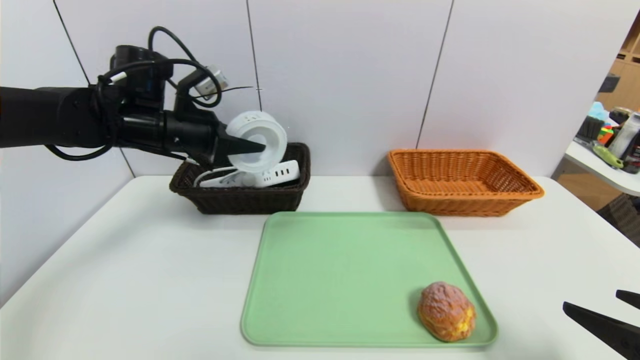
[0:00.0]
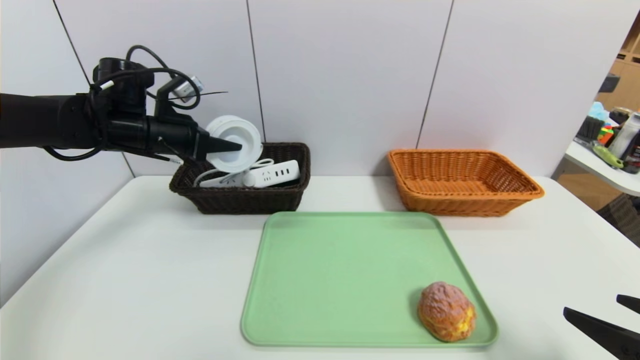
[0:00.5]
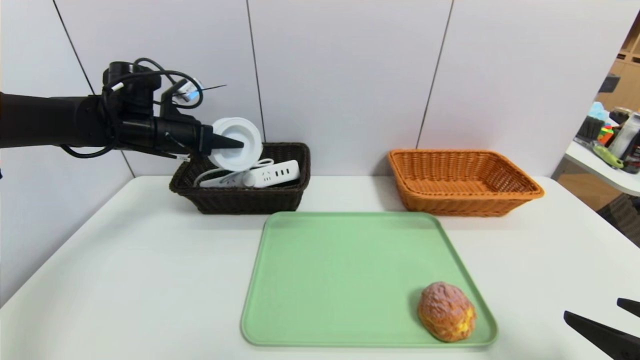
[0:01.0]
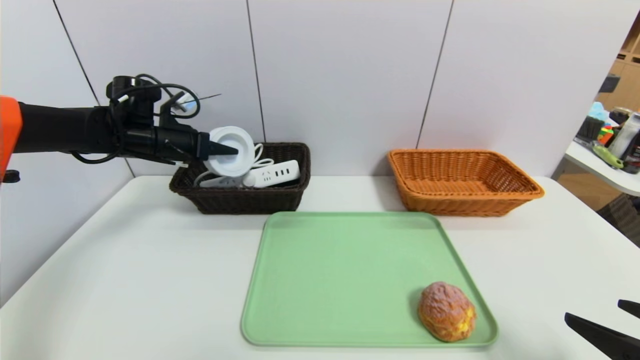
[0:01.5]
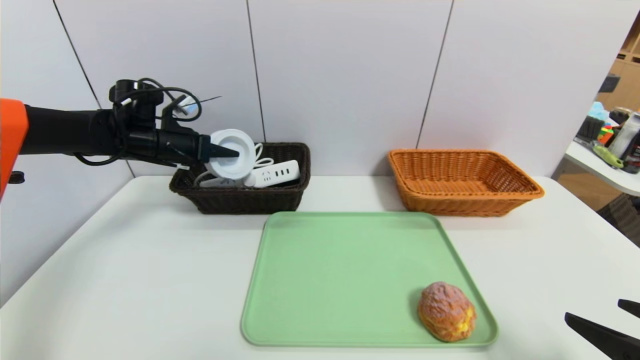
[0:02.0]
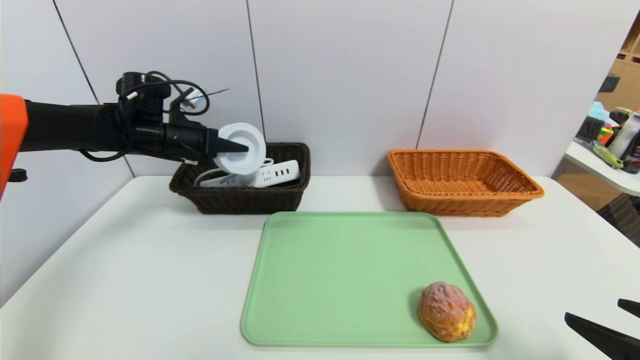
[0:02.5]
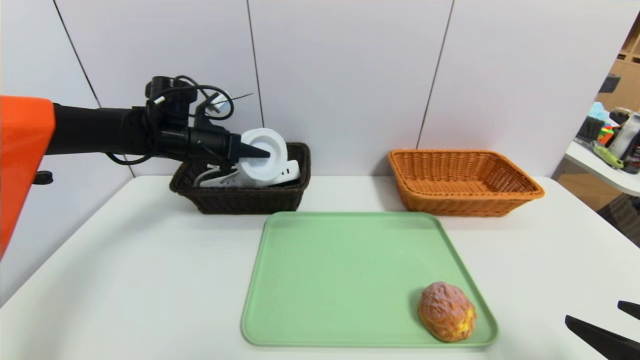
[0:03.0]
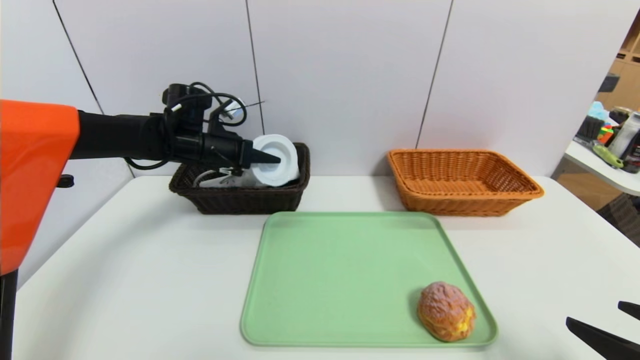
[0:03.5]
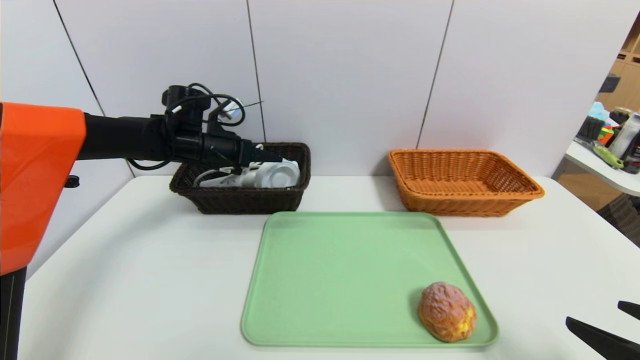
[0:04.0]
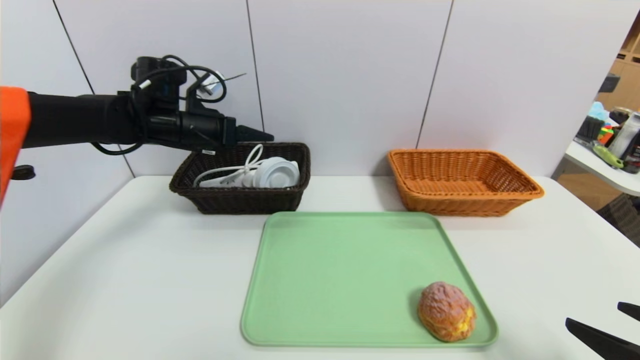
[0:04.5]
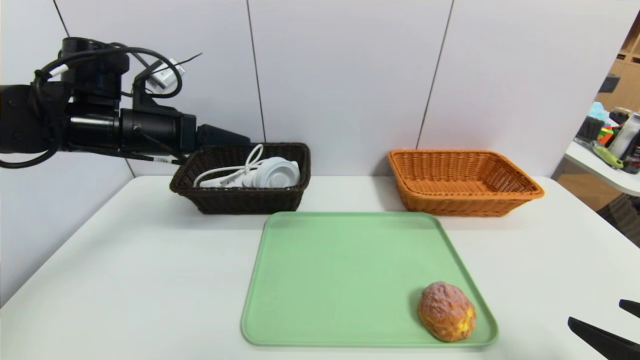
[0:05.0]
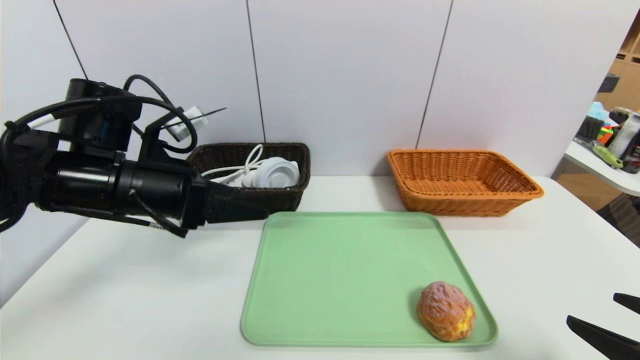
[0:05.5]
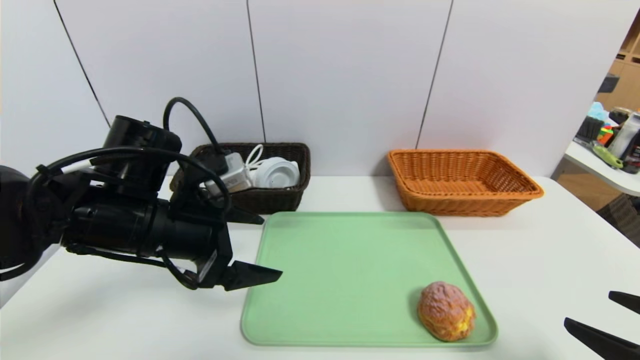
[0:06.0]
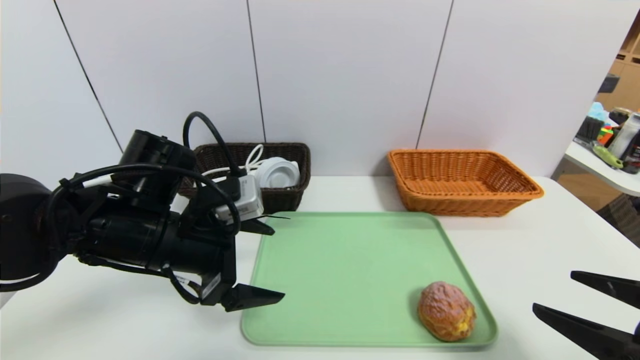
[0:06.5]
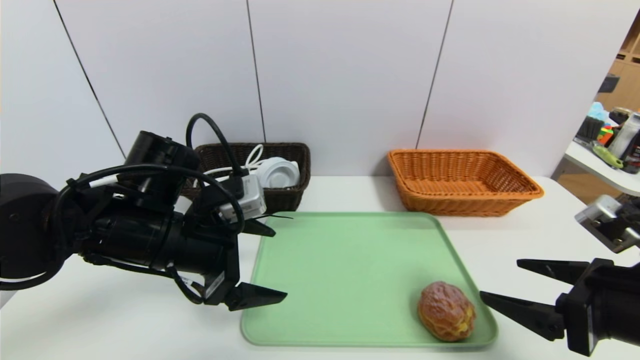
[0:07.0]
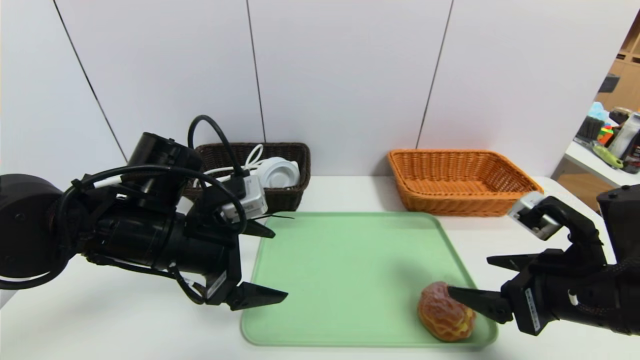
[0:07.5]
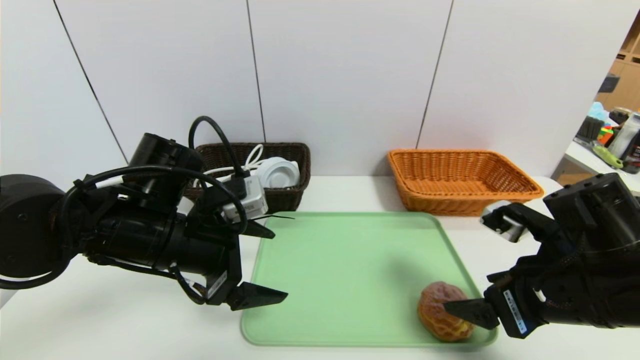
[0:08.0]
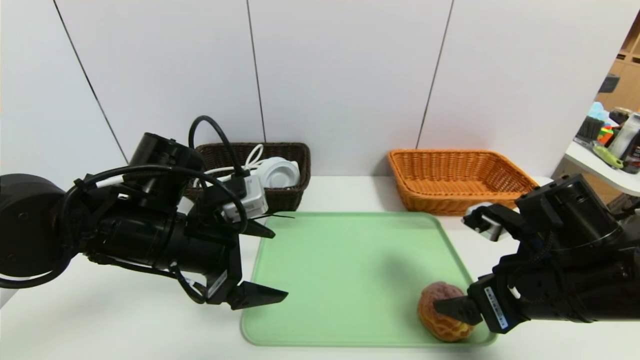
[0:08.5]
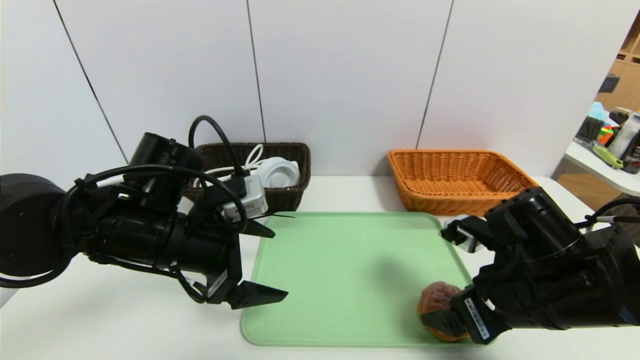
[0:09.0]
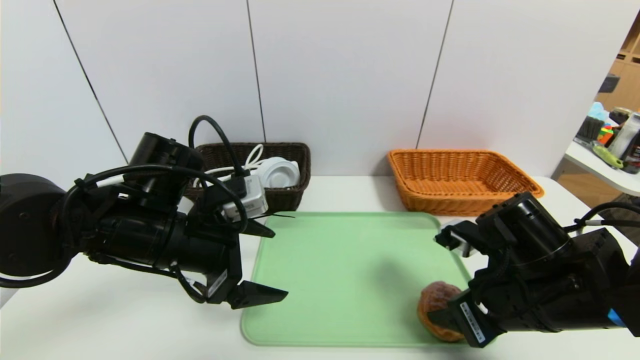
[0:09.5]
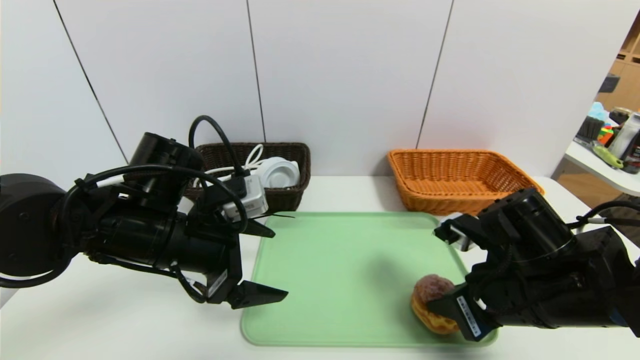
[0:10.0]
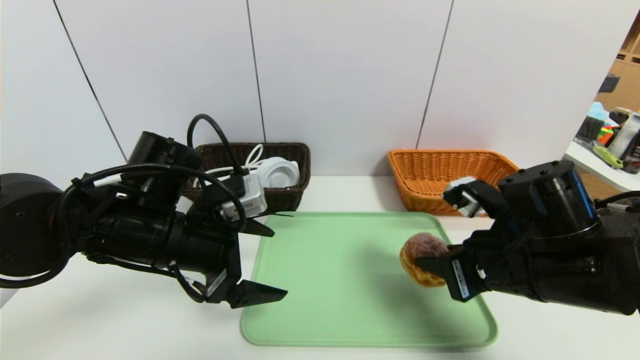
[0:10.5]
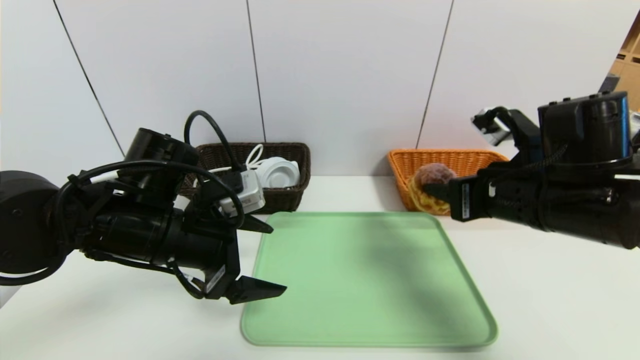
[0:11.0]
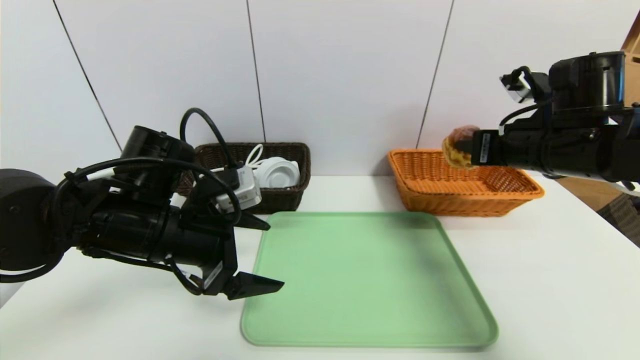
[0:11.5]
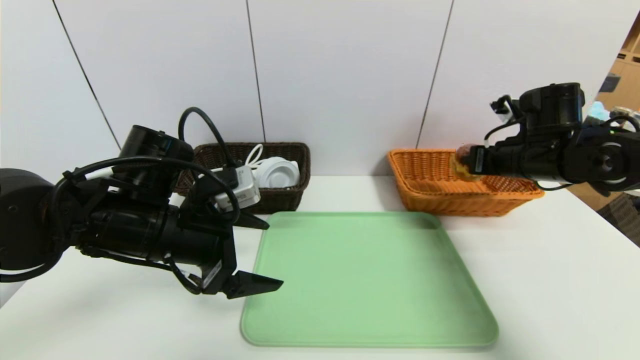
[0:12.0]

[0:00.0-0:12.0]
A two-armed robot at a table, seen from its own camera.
Task of the whole recording: place the food in the right basket with the right gripper, and place the non food items in the left basket with the left gripper.
Step, 0:00.0 to 0:04.0: Grasp the tape and put it in the left basket.
0:00.0 to 0:02.0: The left gripper heads forward and to the left, covering some 10 cm.
0:02.0 to 0:04.0: The left gripper shifts approximately 5 cm to the right, and opens its fingers.
0:04.0 to 0:06.0: The left gripper goes about 20 cm backward, and opens.
0:06.0 to 0:08.0: The right gripper is displaced forward and to the left by about 15 cm.
0:08.0 to 0:10.0: The right gripper closes.
0:10.0 to 0:12.0: The right gripper is displaced forward and to the right by some 20 cm.

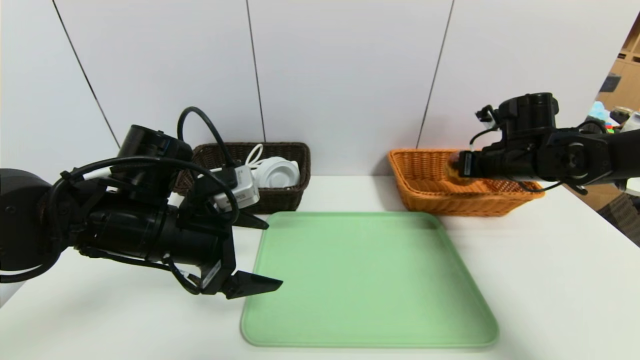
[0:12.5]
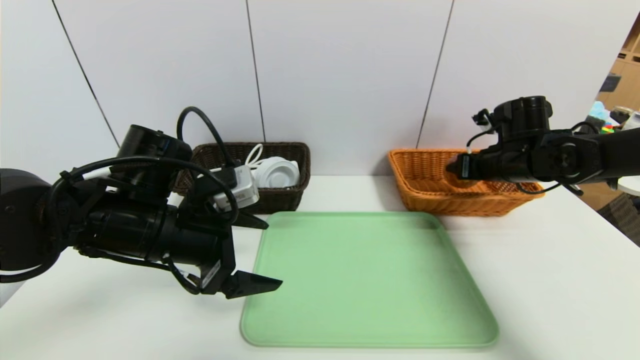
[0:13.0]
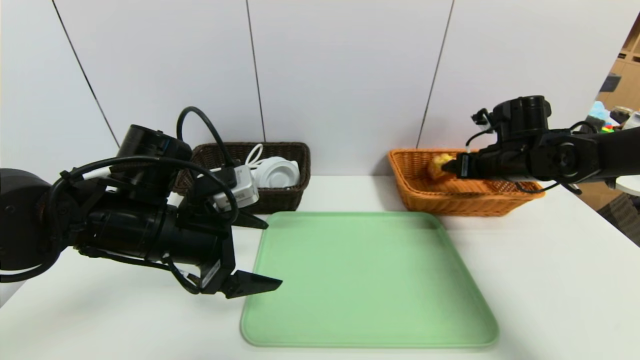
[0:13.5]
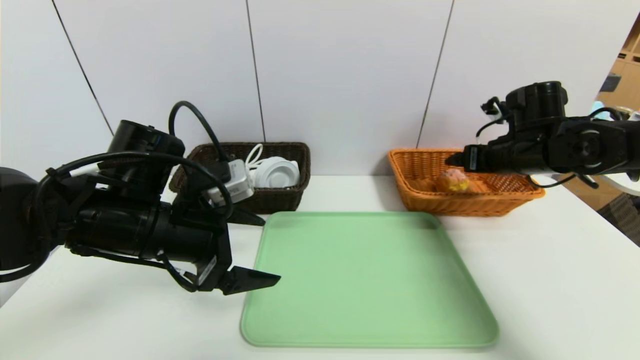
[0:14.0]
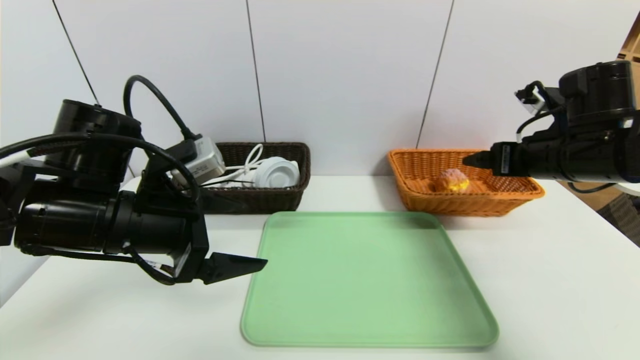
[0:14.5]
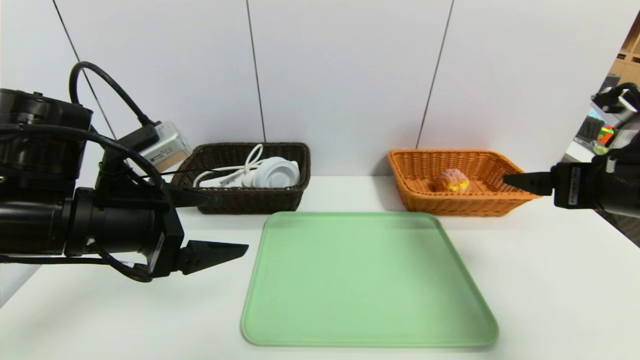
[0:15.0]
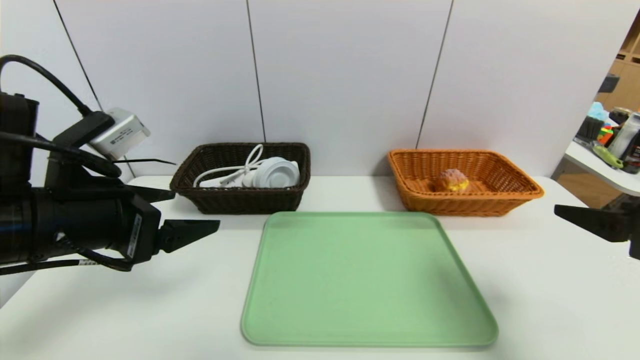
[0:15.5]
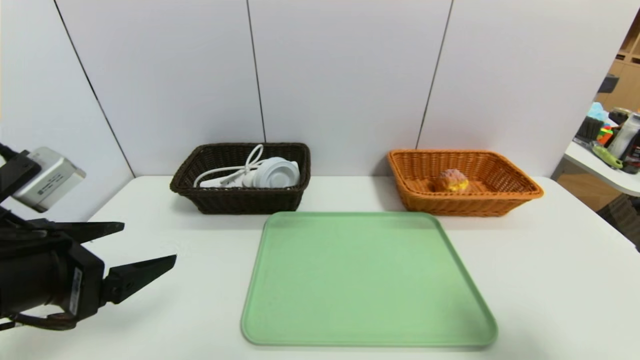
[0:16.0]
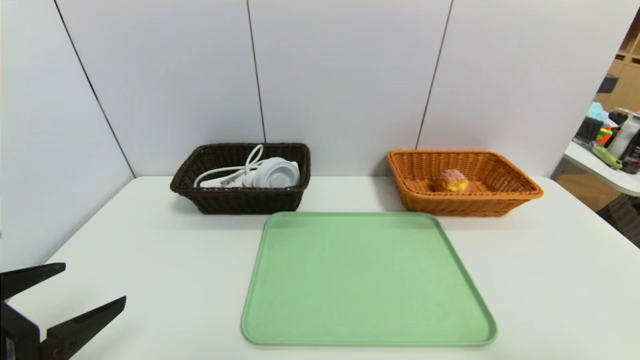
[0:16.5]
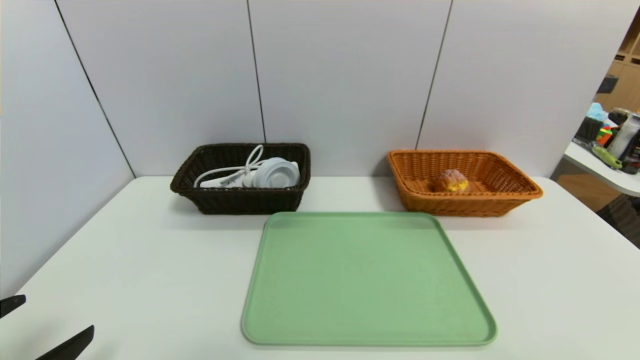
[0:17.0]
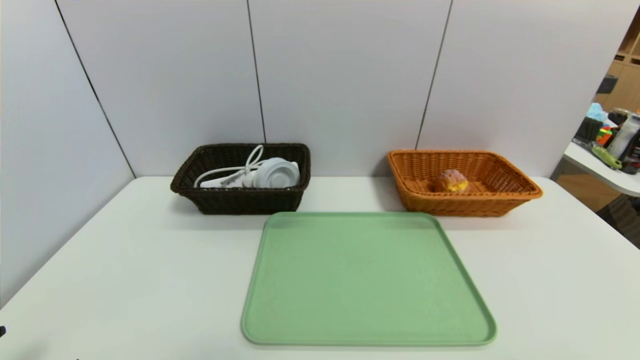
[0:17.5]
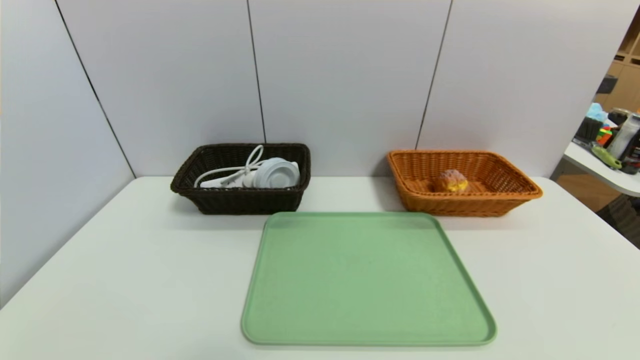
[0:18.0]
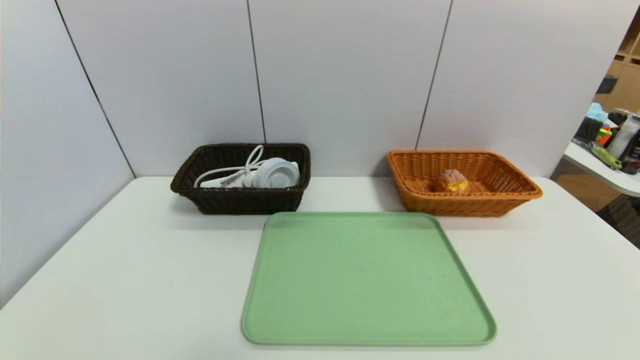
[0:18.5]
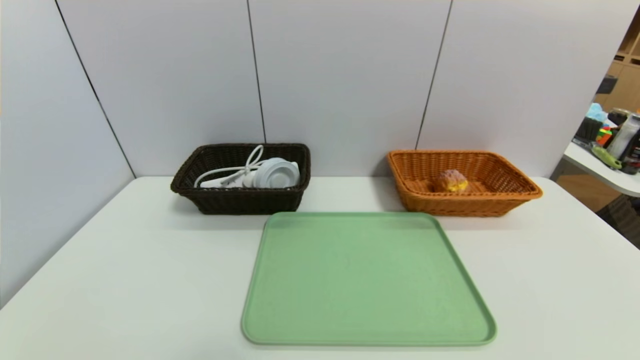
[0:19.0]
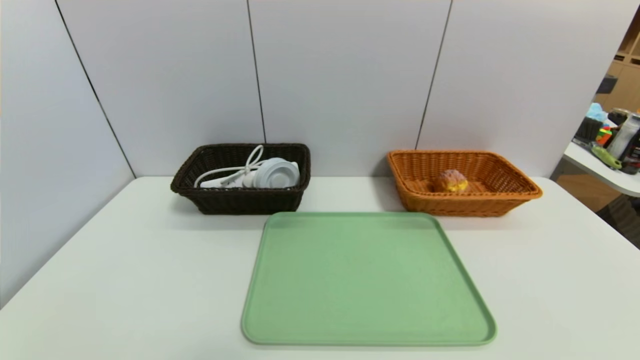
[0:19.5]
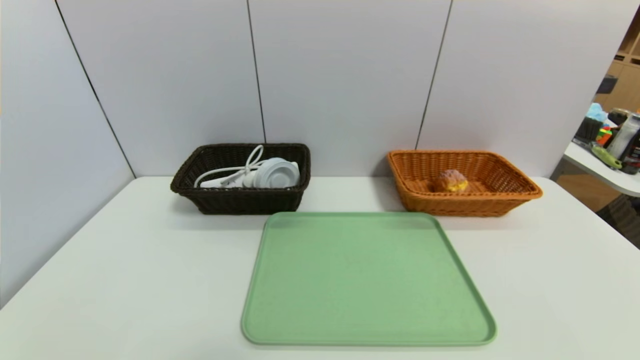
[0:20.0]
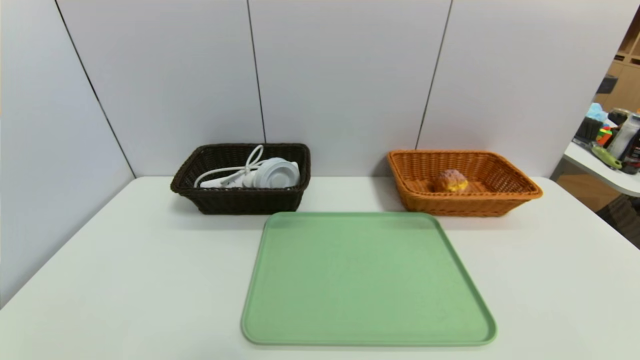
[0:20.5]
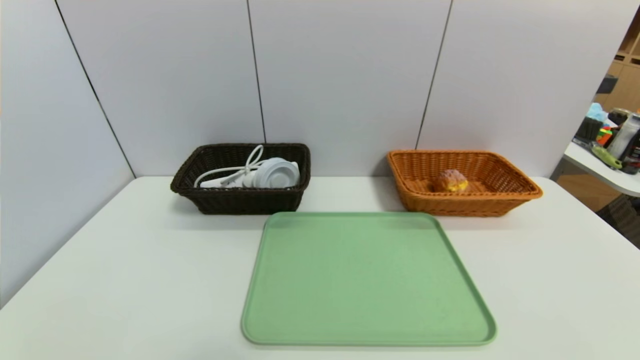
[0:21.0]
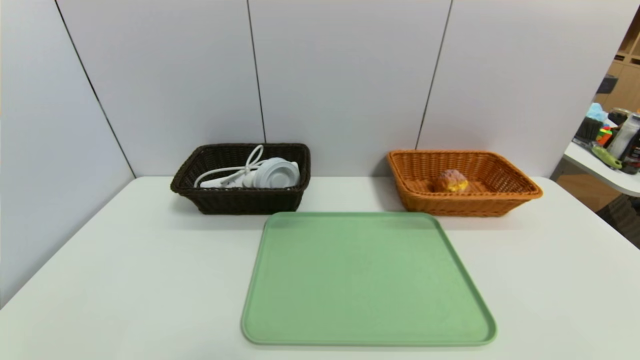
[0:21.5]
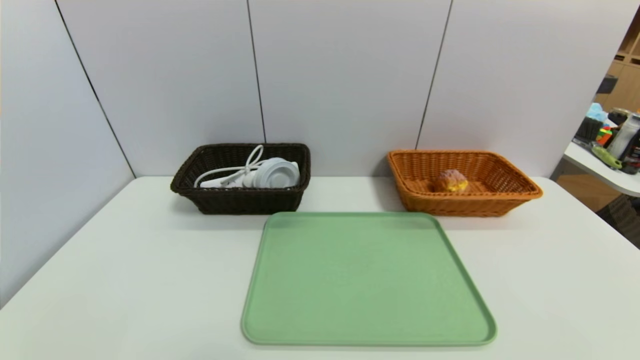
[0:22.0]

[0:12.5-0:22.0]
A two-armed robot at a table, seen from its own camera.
Task of the whole recording: place the food in the right basket with the right gripper, and place the non food items in the left basket with the left gripper.
0:12.5 to 0:14.5: The right gripper is displaced backward and upward by approximately 10 cm, and opens.
0:14.5 to 0:16.5: The right gripper goes some 30 cm backward. The left gripper is displaced backward and to the left by about 15 cm.
0:16.5 to 0:18.0: The left gripper travels downward and backward by approximately 15 cm; the right gripper shifts by some 5 cm.
